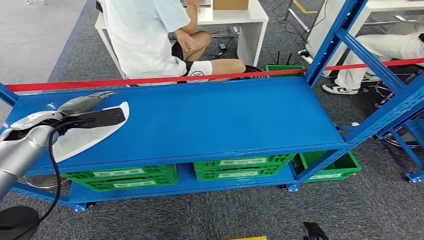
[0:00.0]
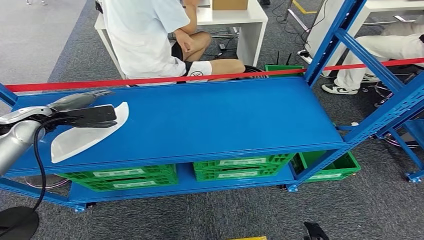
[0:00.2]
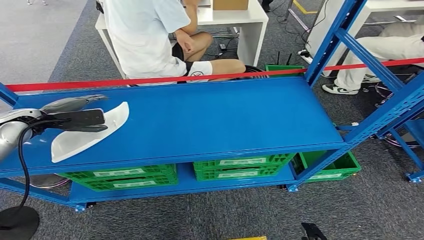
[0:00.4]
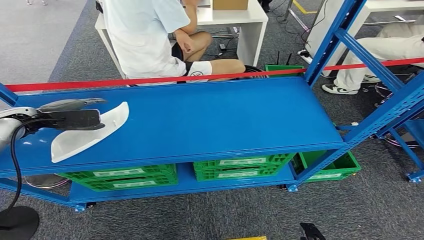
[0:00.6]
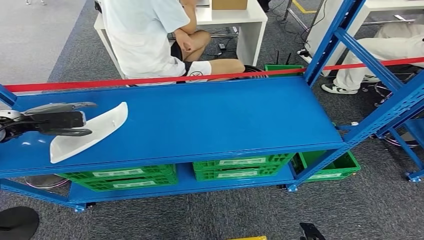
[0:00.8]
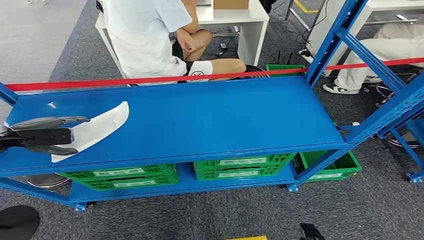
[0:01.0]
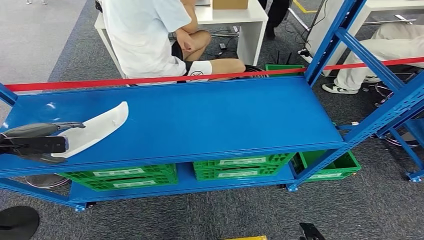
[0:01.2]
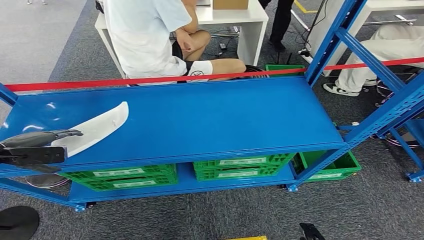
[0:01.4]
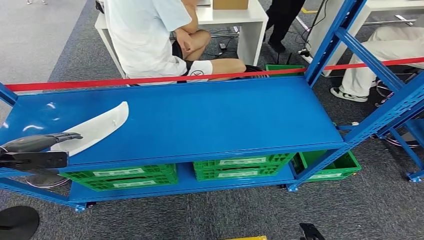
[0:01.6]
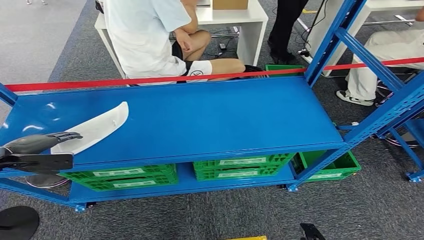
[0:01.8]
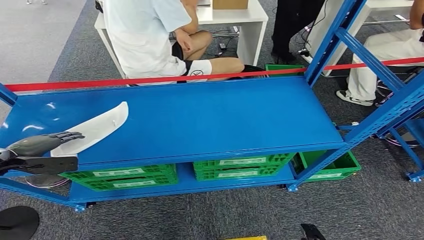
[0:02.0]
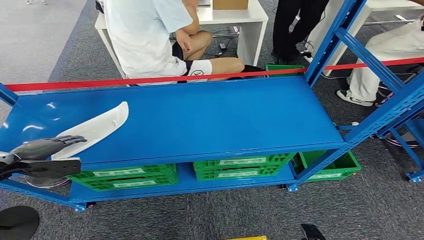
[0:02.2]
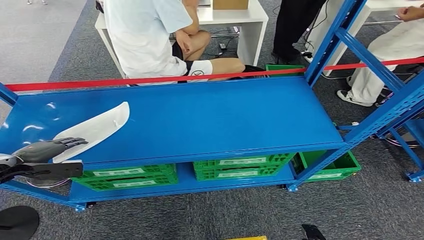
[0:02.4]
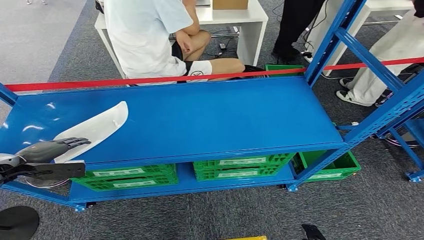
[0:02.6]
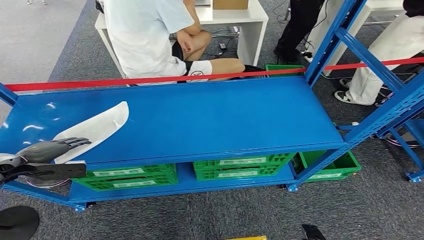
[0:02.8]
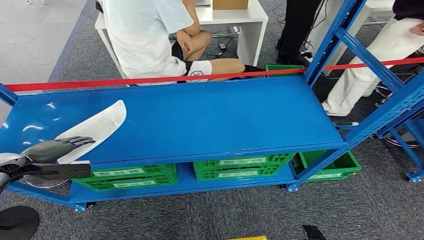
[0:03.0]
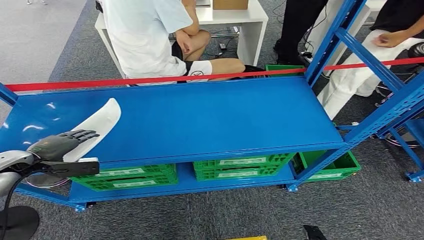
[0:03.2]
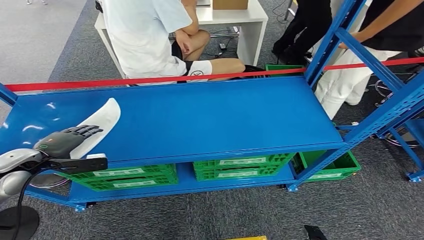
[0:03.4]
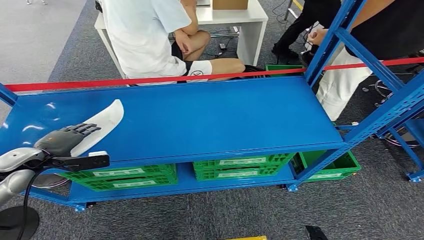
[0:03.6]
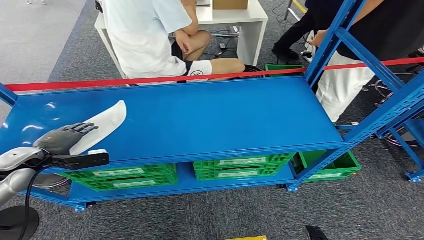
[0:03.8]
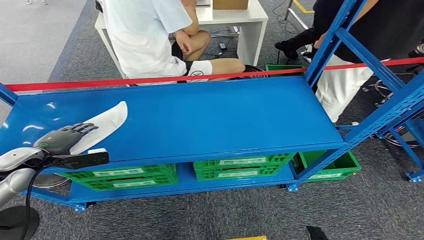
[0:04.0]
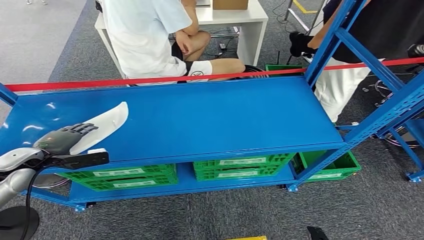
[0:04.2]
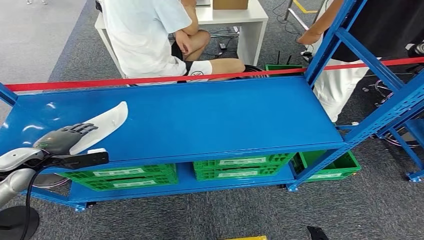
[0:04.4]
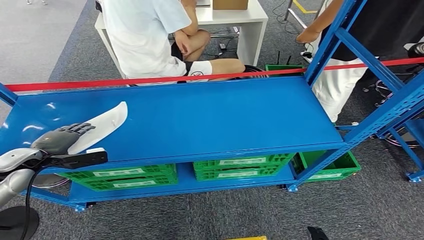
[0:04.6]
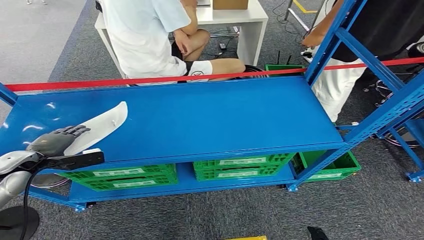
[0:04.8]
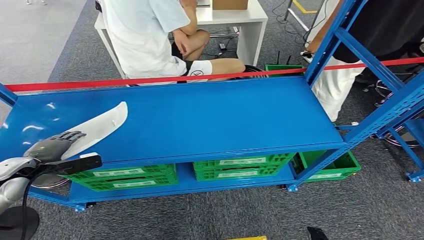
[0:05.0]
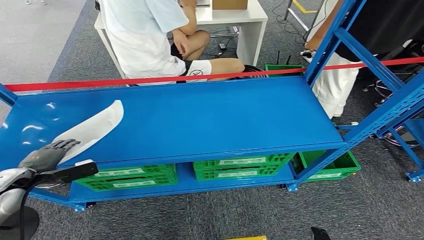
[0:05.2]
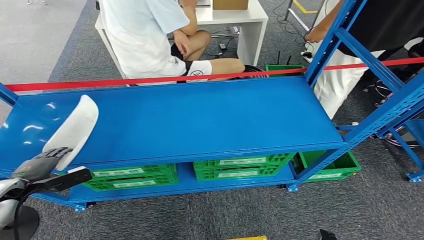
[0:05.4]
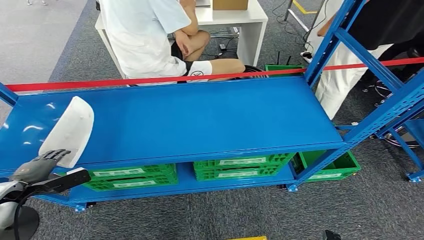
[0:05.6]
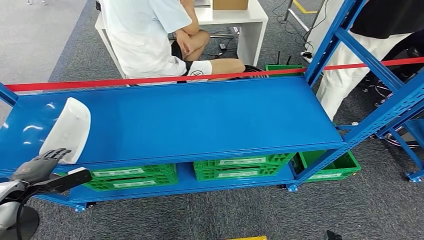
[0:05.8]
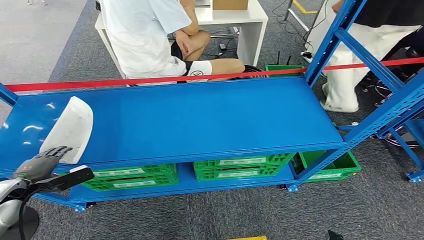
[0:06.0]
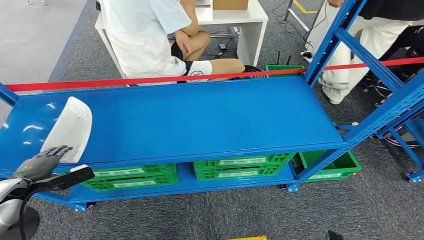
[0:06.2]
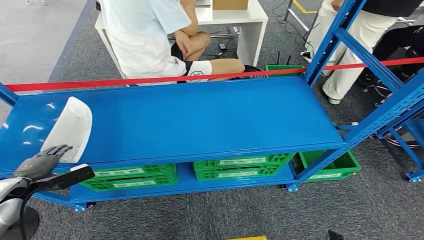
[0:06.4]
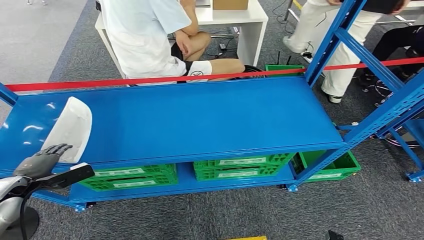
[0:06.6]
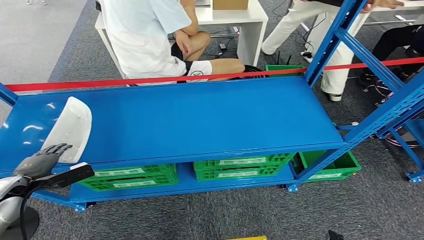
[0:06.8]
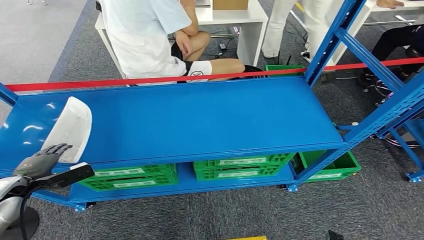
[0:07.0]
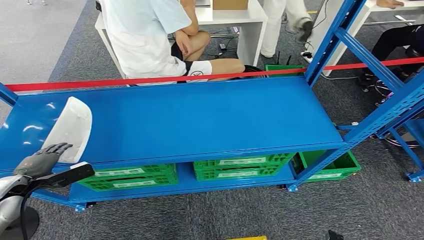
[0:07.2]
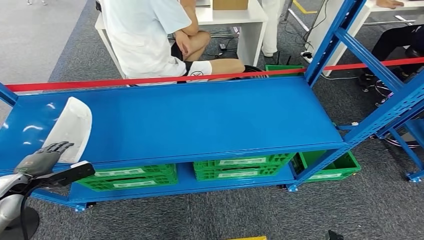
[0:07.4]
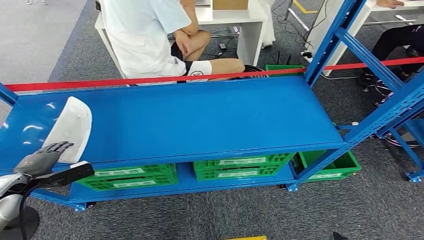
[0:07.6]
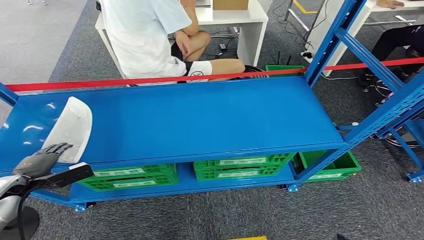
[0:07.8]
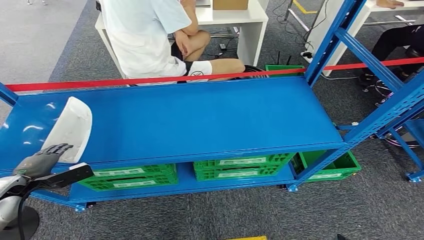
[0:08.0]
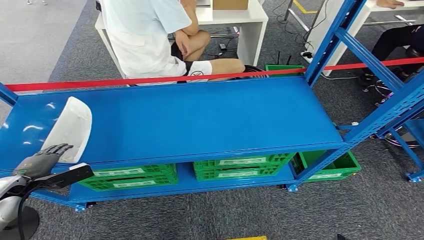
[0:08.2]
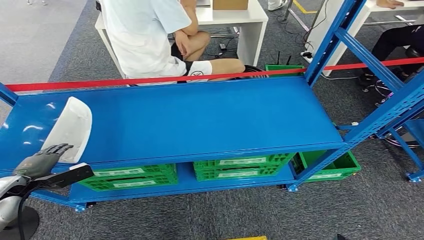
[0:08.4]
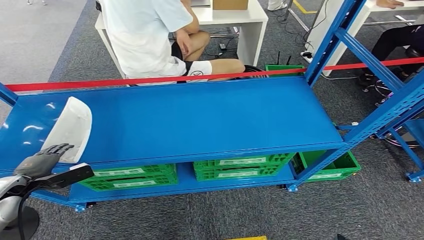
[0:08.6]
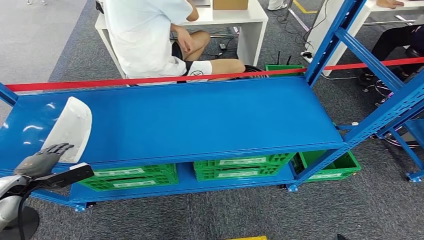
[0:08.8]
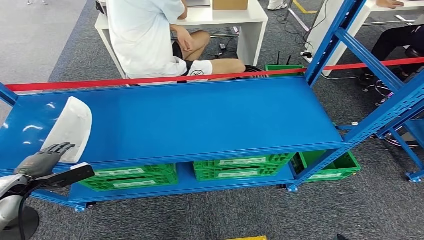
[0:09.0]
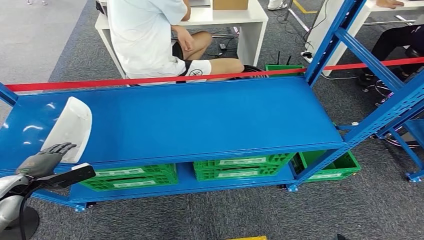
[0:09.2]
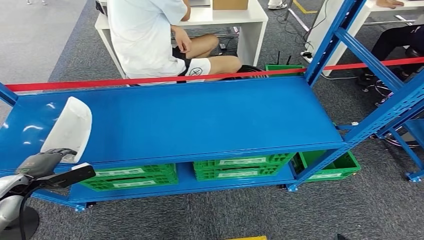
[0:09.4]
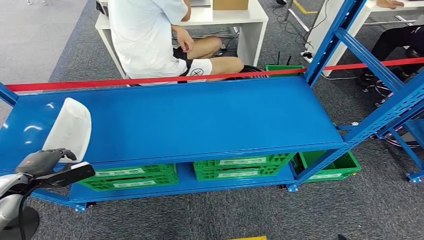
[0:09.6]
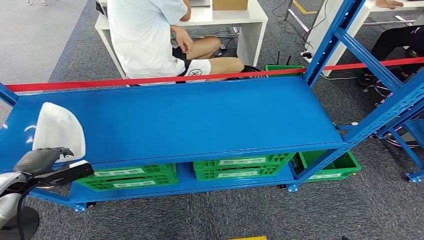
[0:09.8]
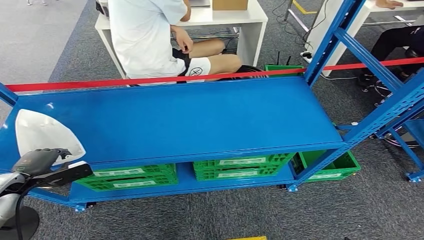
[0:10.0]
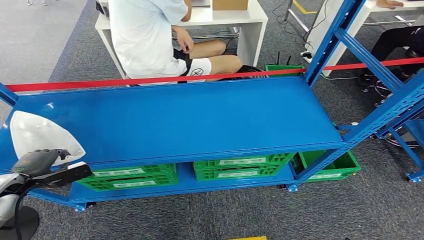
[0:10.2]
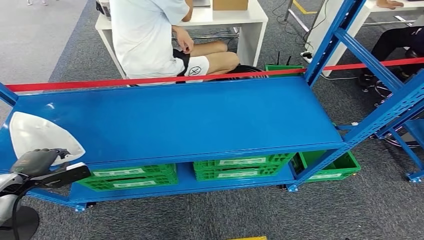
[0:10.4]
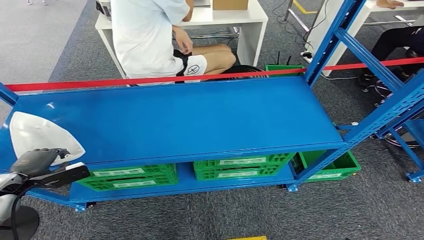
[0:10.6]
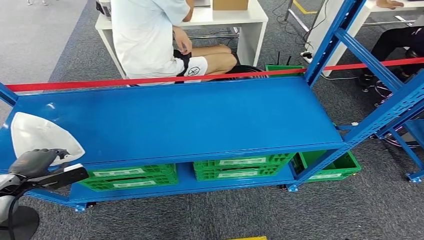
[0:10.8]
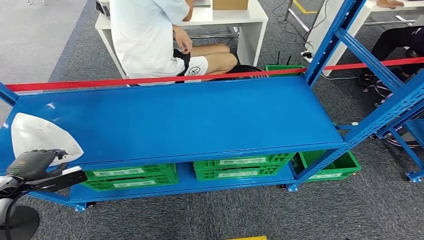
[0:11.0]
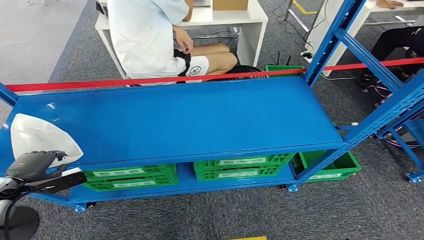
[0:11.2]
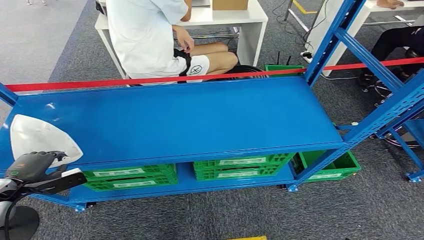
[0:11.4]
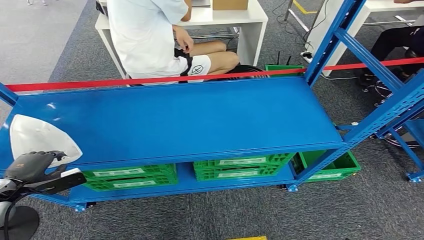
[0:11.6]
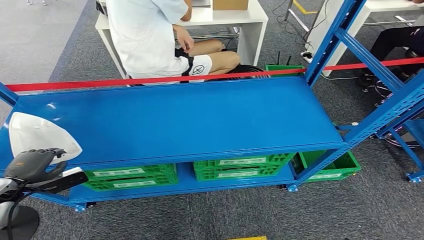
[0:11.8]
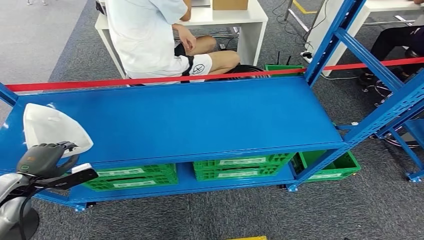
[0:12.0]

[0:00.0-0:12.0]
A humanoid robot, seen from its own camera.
0:00.0 to 0:01.6: The left hand is displaced to the left and backward by about 15 cm.
0:01.6 to 0:03.0: The left hand moves approximately 5 cm.
0:03.0 to 0:04.4: The hands move only a little.
0:04.4 to 0:06.0: The left hand travels backward and downward by approximately 10 cm.
0:06.0 to 0:07.6: The hands move only a little.
0:07.6 to 0:09.0: Neither hand changes place.
0:09.0 to 0:10.4: The hands move only a little.
0:10.4 to 0:12.0: The hands stay close to where they were, moving slightly.

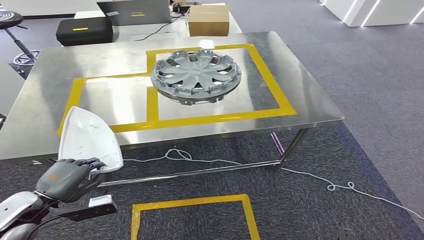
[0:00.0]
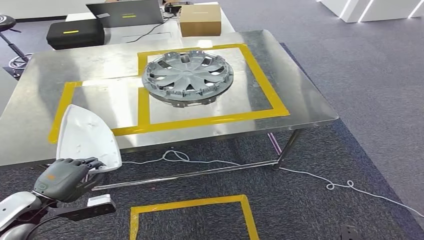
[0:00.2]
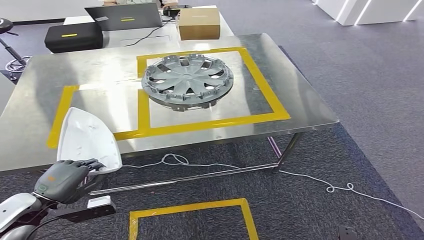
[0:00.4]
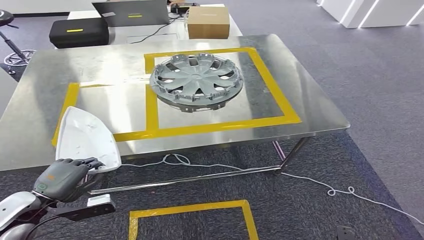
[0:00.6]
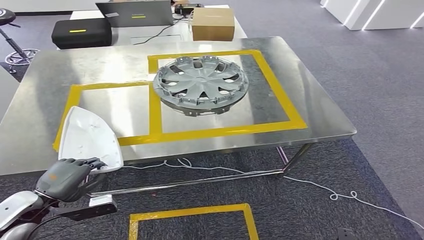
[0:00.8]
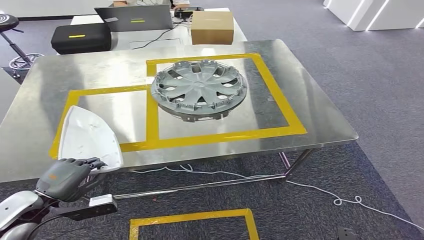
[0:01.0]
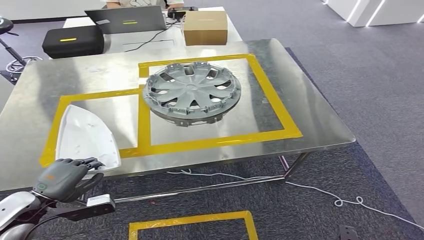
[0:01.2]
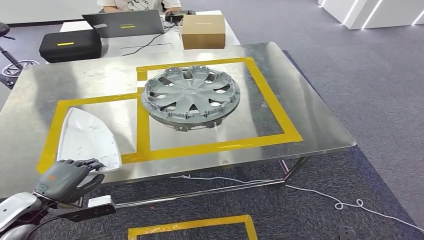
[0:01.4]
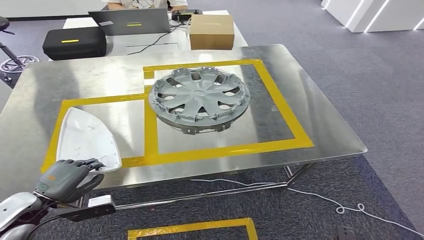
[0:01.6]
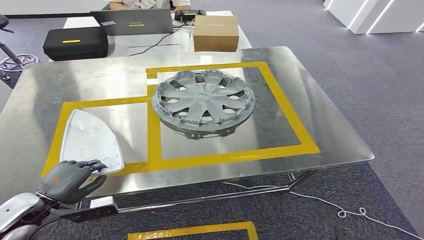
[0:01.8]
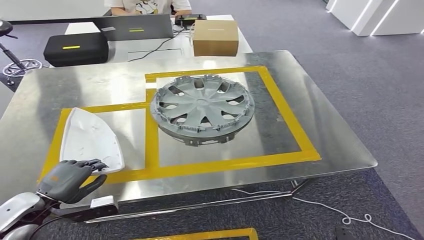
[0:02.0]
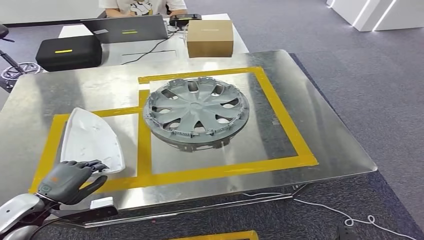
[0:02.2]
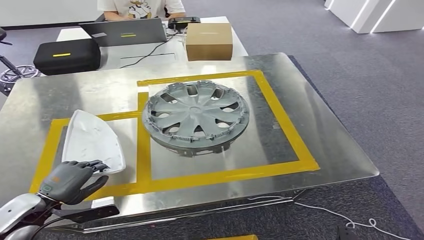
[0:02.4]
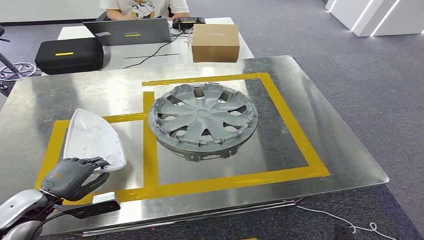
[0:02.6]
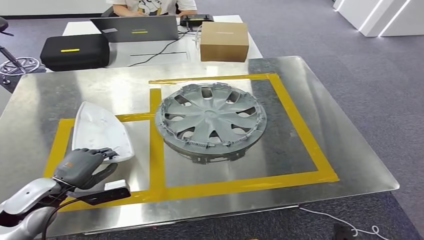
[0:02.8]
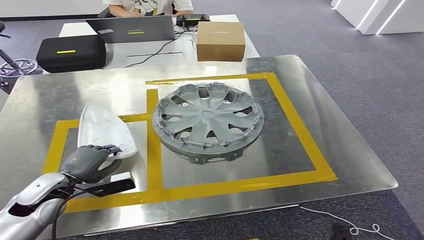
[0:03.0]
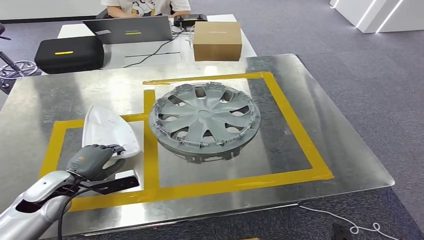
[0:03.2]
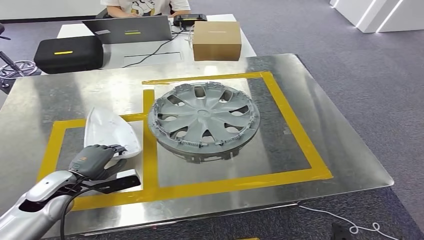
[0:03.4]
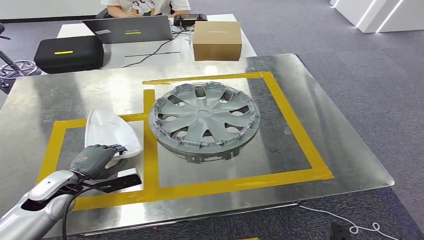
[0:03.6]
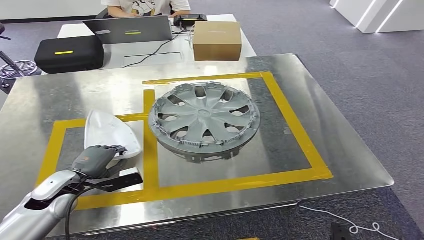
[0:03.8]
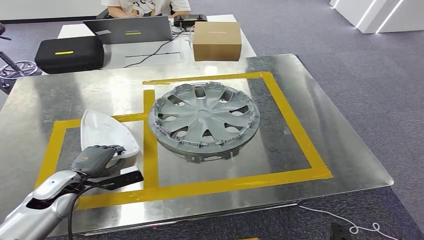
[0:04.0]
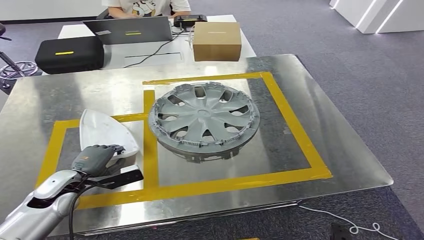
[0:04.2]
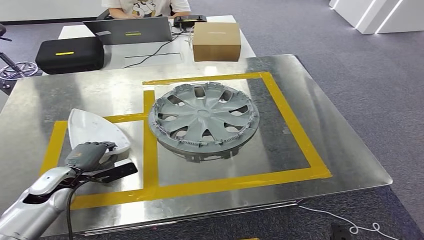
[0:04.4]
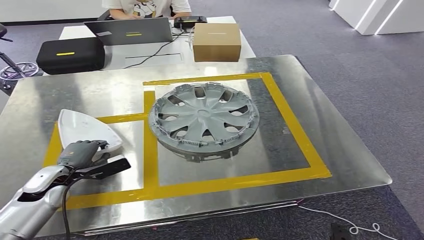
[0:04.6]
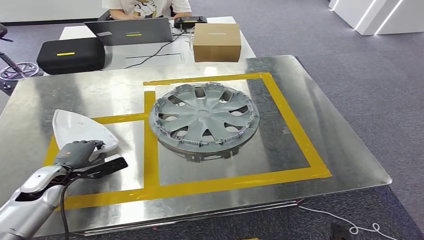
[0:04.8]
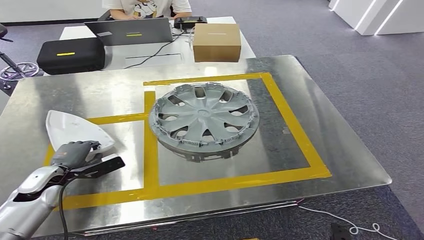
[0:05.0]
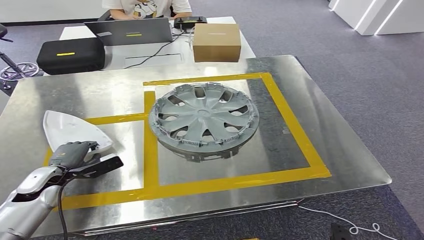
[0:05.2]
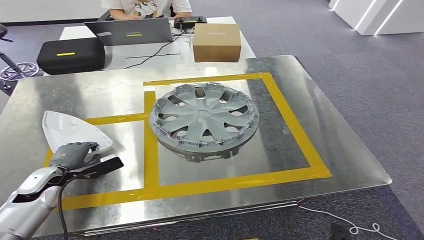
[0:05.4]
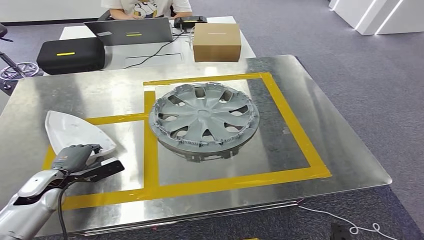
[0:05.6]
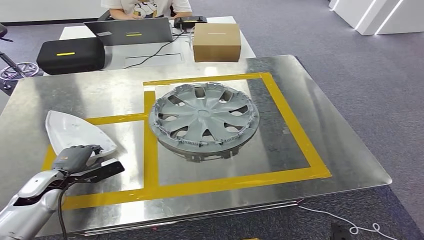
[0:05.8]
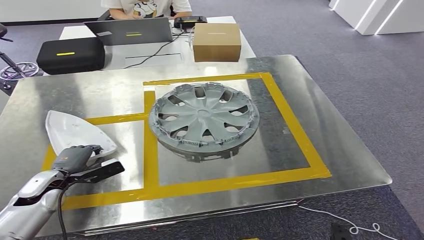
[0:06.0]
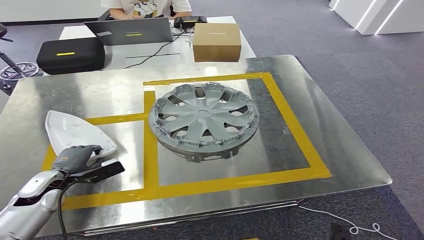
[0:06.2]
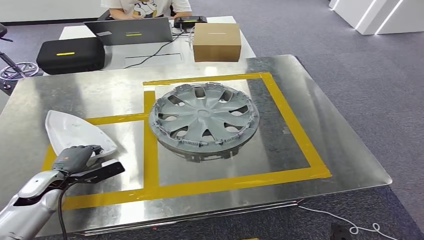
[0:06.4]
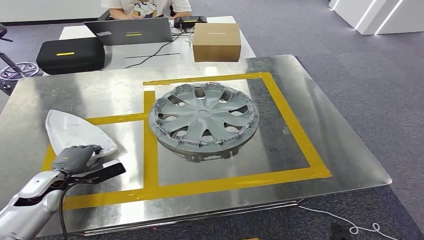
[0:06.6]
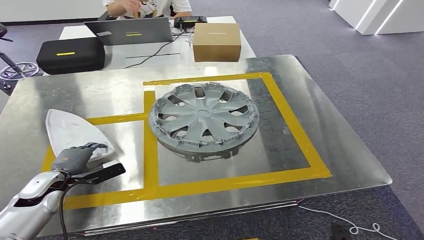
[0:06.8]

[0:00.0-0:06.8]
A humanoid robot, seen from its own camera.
Step, 0:00.0 to 0:02.6: Move the small parts to the workbench.
0:04.0 to 0:05.4: The hands stay close to where they were, moving slightly.
0:05.4 to 0:06.8: Both hands stay about where they are.
